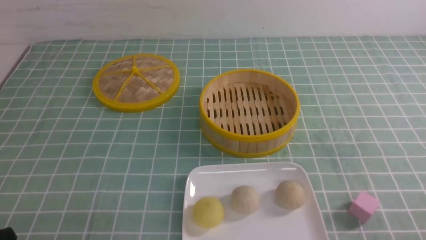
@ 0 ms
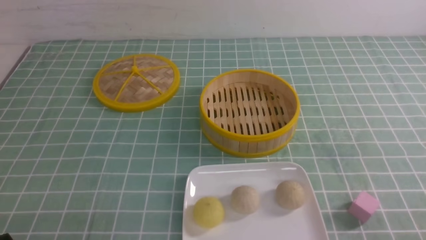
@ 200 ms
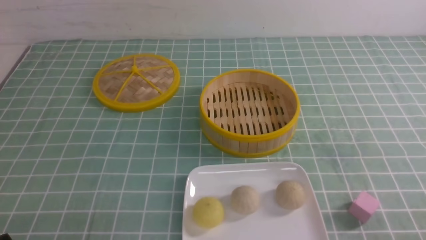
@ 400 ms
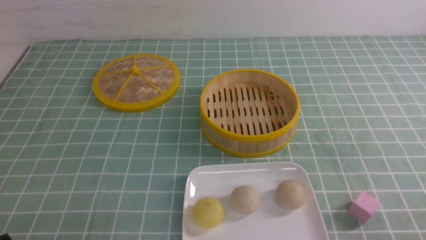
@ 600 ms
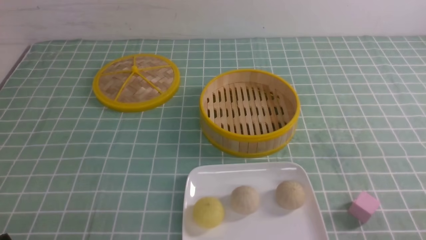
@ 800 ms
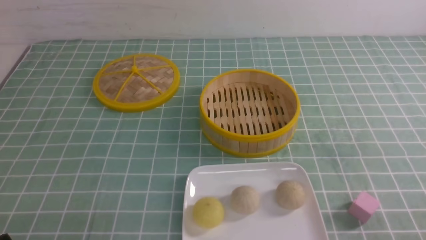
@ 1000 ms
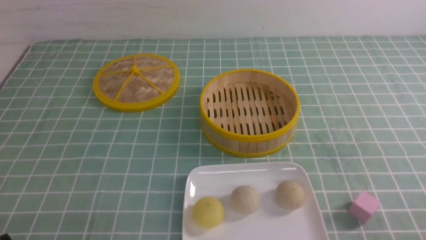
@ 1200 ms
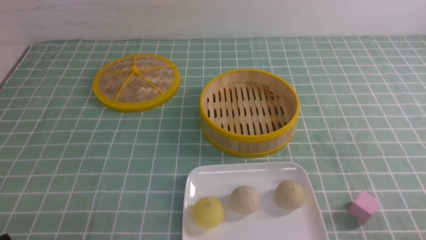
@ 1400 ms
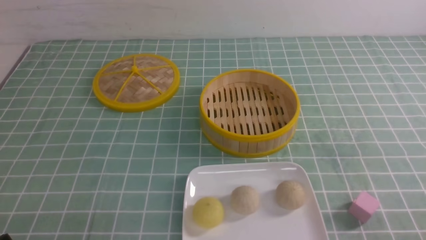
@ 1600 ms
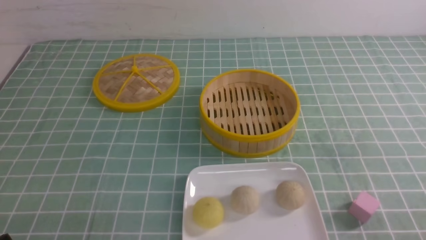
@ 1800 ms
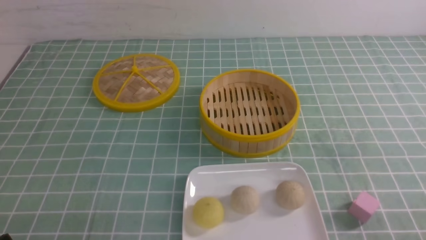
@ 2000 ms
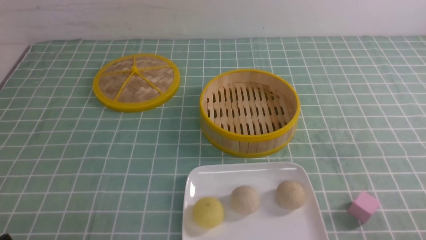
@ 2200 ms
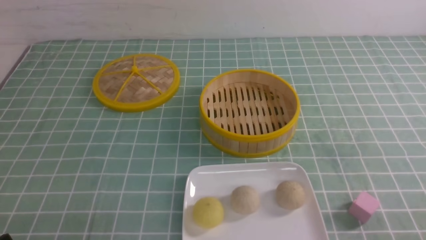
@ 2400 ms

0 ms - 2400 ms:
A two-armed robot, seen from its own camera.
0 ms - 2400 ms: The two grippers keep their place.

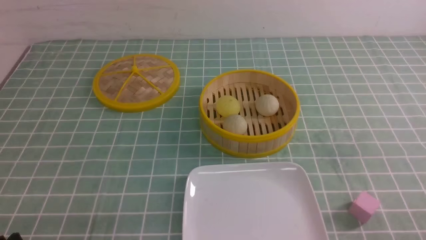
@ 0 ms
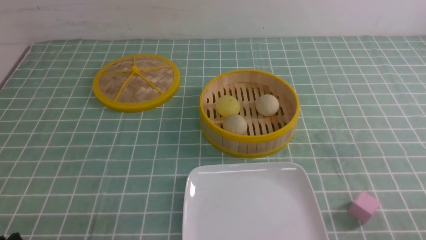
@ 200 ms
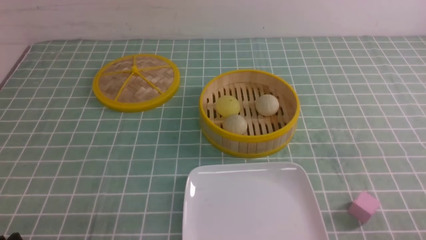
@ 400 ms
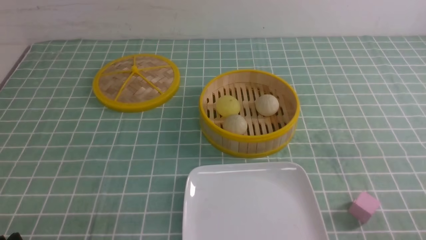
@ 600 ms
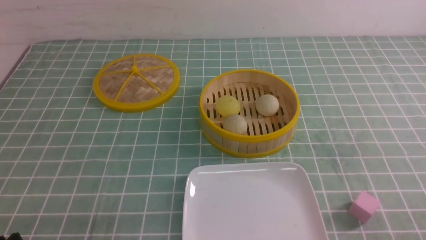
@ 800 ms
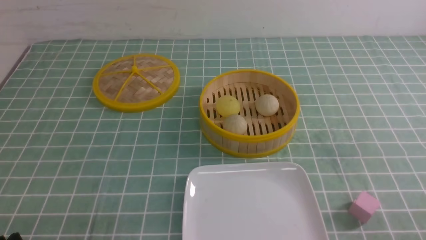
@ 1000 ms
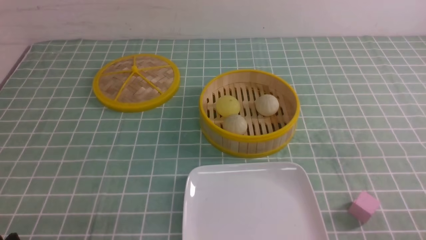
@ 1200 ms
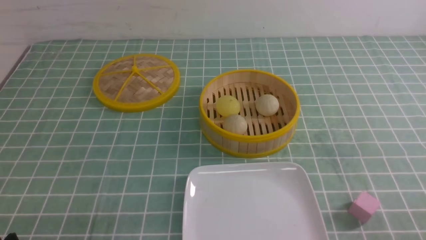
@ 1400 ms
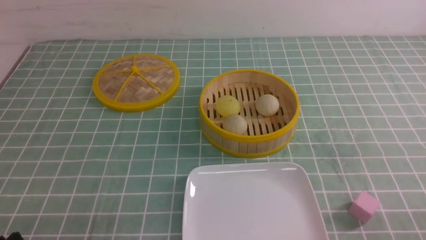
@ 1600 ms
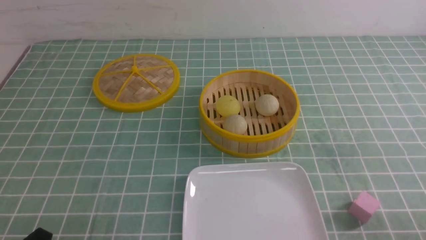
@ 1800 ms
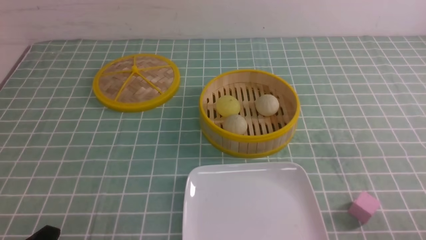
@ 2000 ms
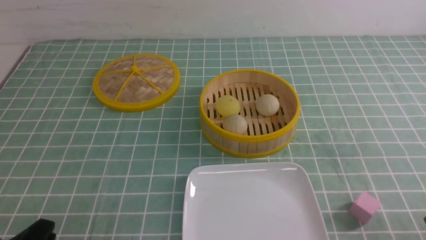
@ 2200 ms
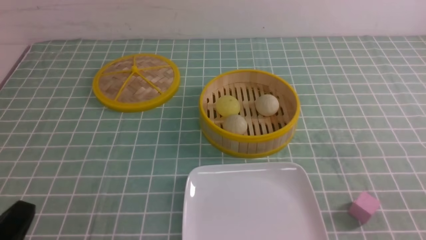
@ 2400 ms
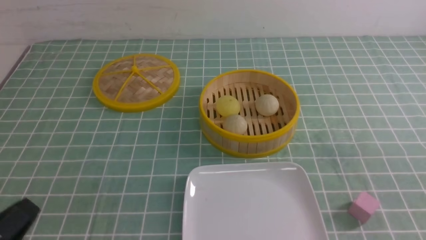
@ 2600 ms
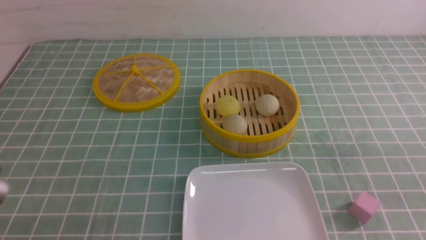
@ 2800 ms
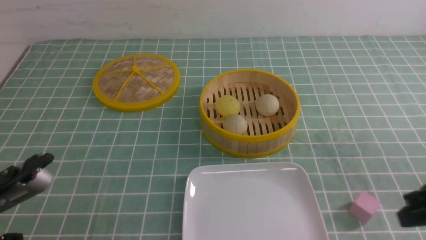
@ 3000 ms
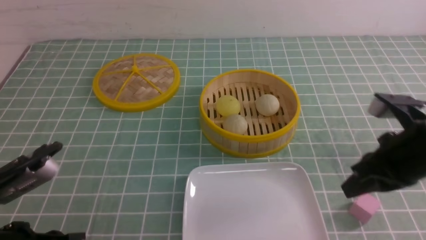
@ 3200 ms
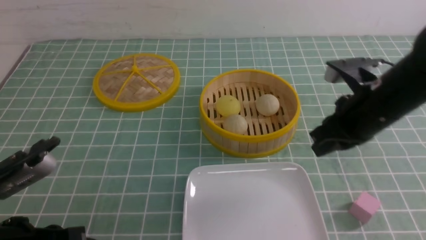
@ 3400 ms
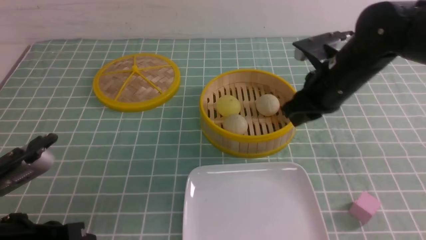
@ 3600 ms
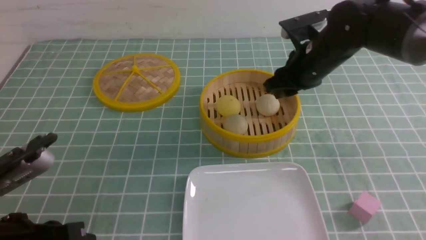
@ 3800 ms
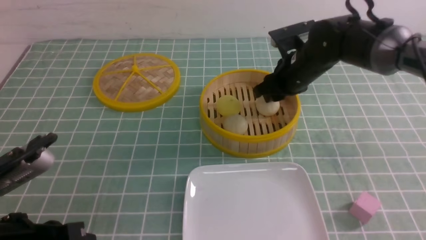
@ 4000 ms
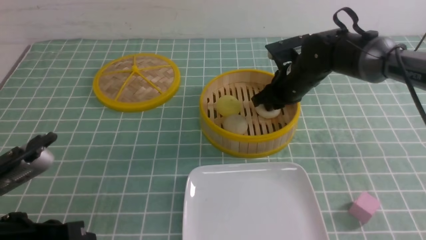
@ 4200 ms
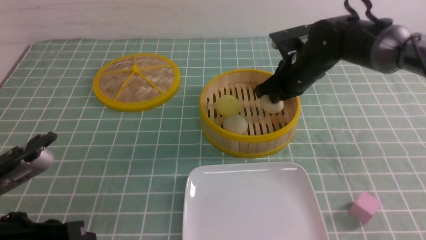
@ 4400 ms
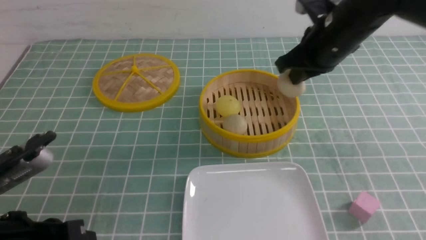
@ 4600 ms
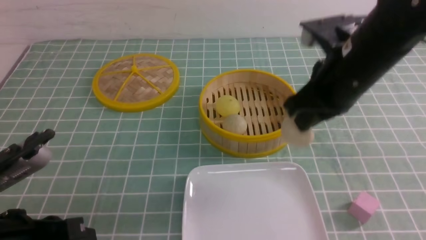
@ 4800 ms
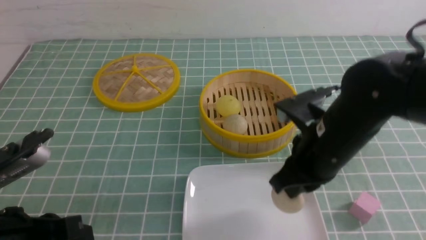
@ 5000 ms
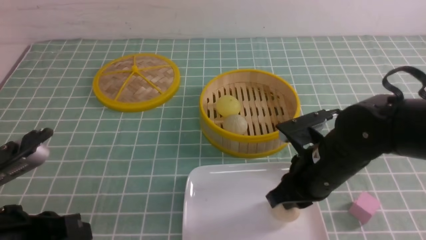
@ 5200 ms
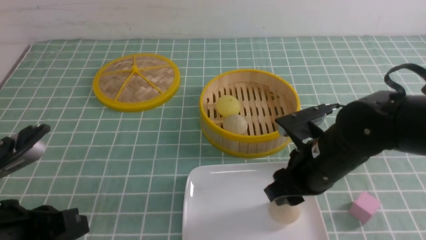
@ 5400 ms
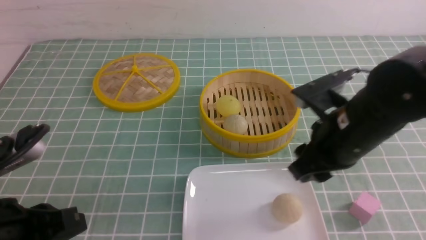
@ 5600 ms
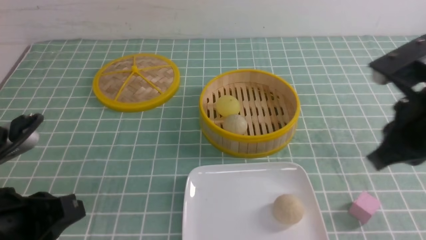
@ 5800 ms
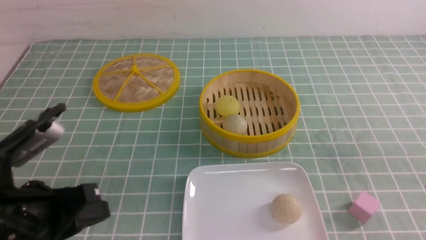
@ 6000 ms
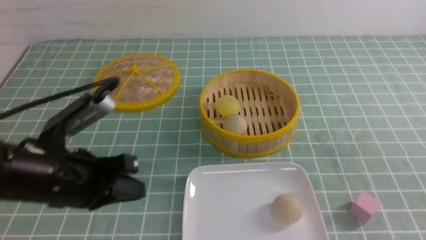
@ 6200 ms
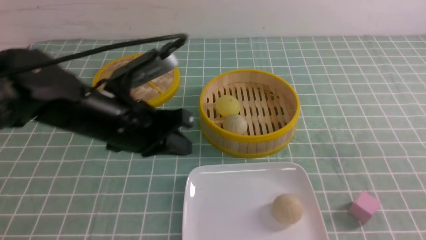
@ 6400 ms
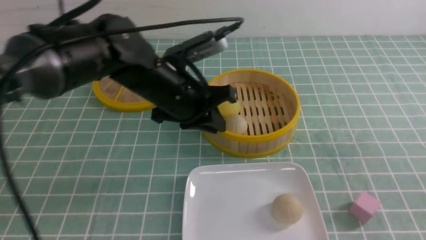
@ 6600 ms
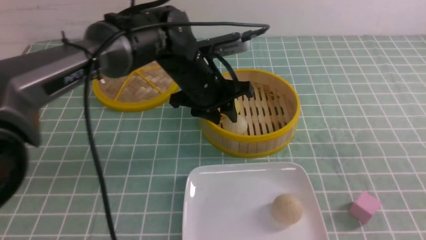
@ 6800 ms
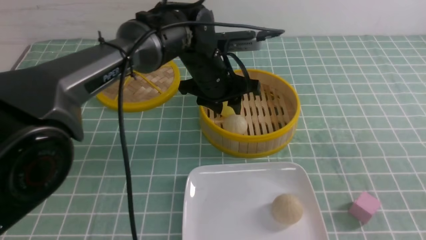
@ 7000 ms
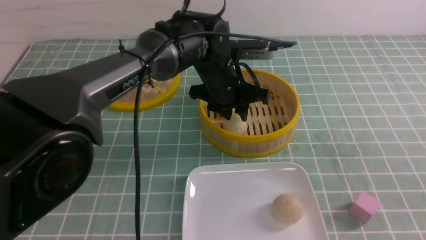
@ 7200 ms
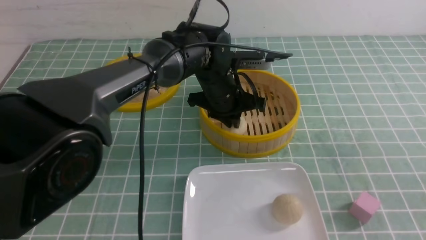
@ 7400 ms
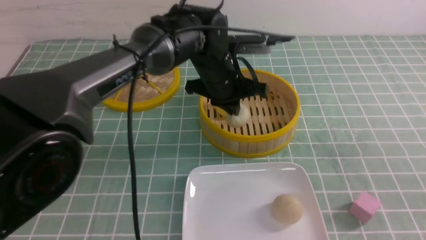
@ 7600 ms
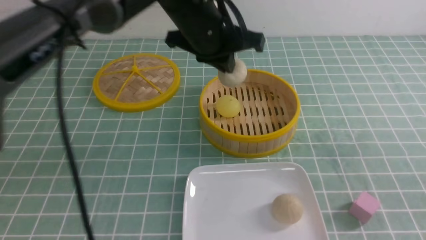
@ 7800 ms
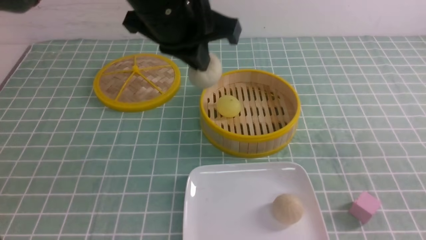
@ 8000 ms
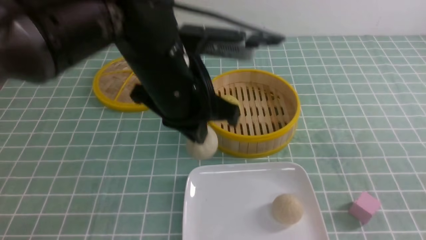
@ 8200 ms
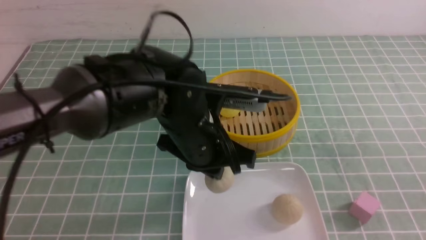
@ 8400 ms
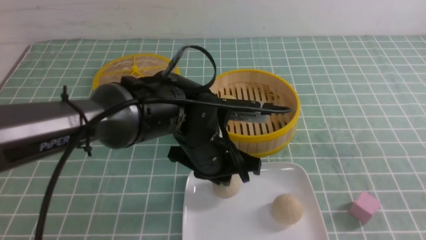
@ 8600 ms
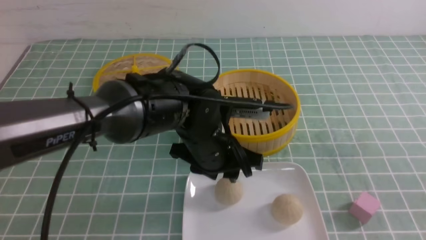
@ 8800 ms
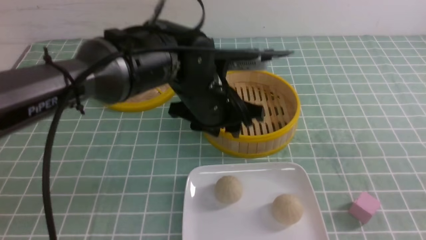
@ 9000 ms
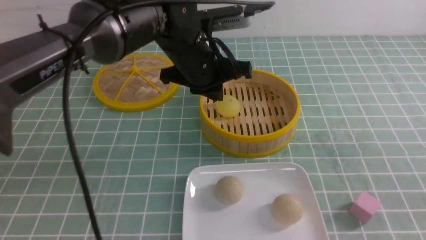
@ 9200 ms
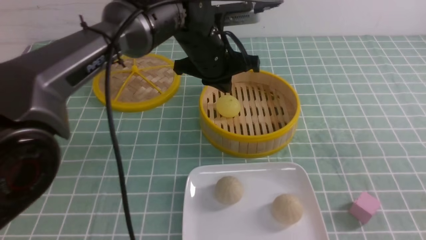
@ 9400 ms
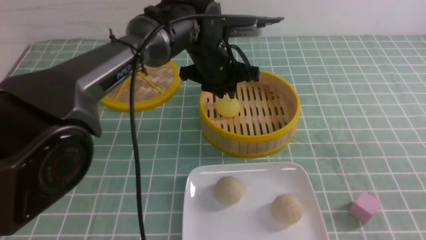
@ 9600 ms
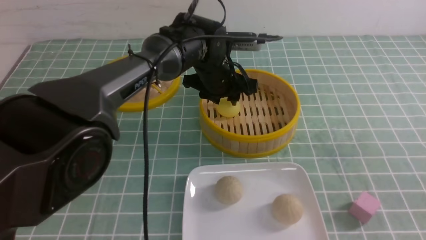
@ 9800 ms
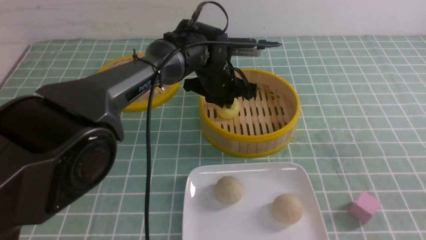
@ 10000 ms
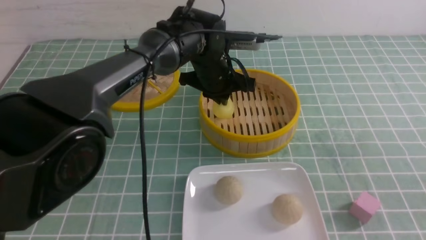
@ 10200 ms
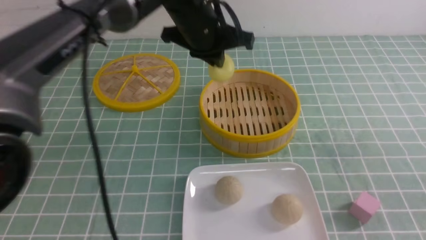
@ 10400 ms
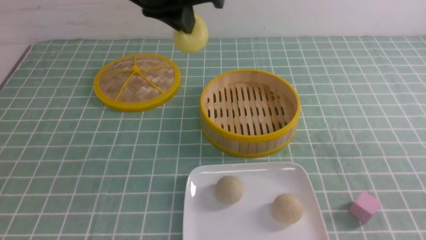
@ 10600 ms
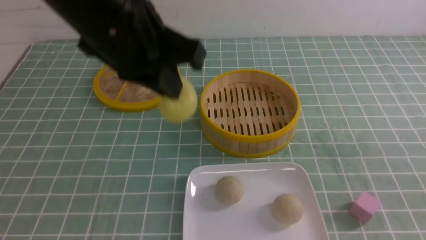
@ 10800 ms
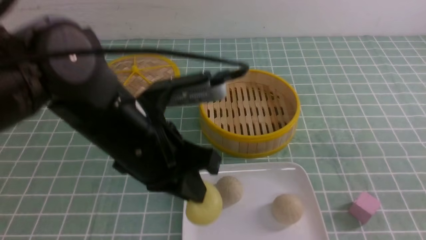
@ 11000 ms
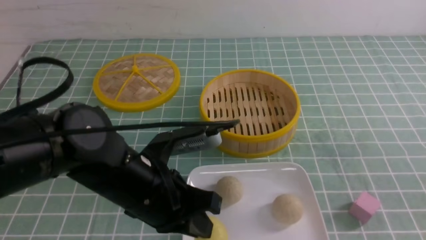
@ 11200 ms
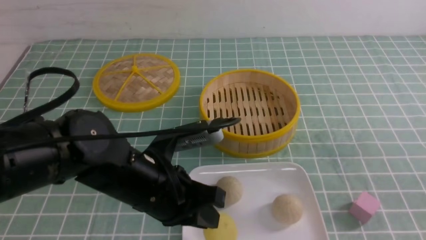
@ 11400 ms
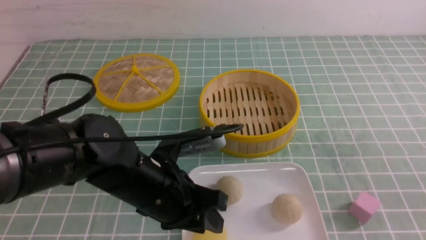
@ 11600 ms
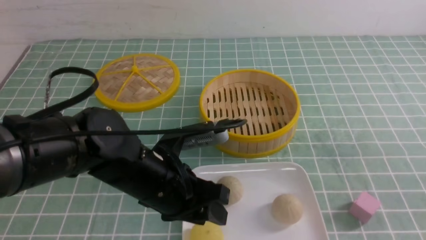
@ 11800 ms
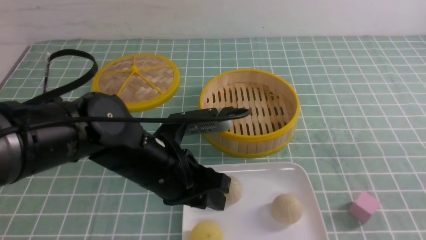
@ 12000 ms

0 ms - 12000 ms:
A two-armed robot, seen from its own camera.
Step, 0 ms - 4200 ms: use the right arm to grab the steamed stuffed bun that is closest to it.
Step, 4400 ms - 5400 ms: use the right arm to put the steamed stuffed bun into the plate.
Step, 5600 ms - 7200 ms: use the left arm to grab the steamed stuffed bun that is closest to it.
Step, 7400 ms - 8600 ms: use the left arm to put the steamed stuffed bun into the plate.
Step, 8800 ms - 10000 ms: use the left arm to grab the steamed stuffed bun that is closest to it.
Step, 10200 ms - 11400 ms: use the left arm to put the steamed stuffed bun into the plate.
1600 ms - 3000 ms: The right gripper moves forward and upward, roughly 15 cm, and closes up. Meanwhile the left gripper moves upward, some 10 cm, and closes.
3000 ms - 4400 ms: The right gripper heads forward and to the left, covering about 25 cm, and opens and closes again.
4400 ms - 6000 ms: The right gripper heads backward and to the right, covering about 30 cm, and opens and closes again. Meanwhile the left gripper heads forward, covering approximately 5 cm.
6000 ms - 7600 ms: The left gripper goes approximately 30 cm forward and to the right, and opens and closes again; the right gripper shifts by roughly 5 cm.
7600 ms - 9000 ms: The left gripper moves up and down over roughly 15 cm, changing direction 2 times, and opens its fingers.
9000 ms - 10400 ms: The left gripper travels upward by roughly 10 cm, and closes up.
10400 ms - 12000 ms: The left gripper is displaced backward and downward by approximately 20 cm, and opens; the right gripper closes.

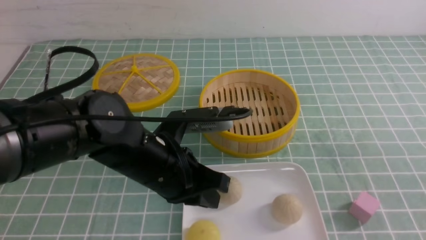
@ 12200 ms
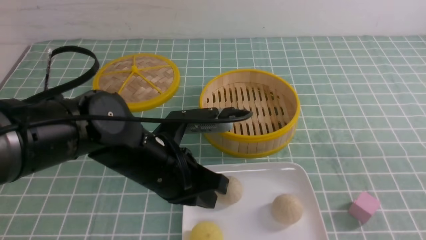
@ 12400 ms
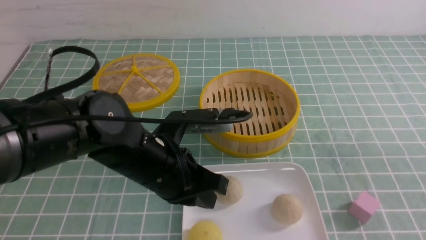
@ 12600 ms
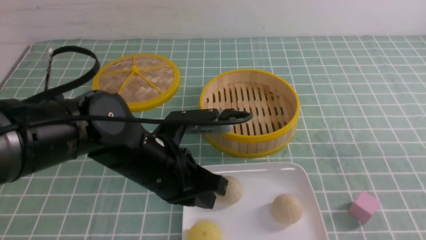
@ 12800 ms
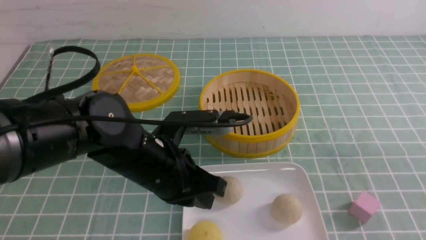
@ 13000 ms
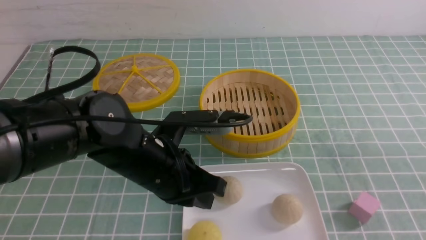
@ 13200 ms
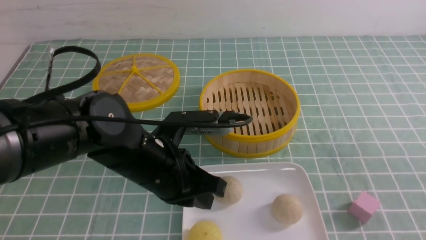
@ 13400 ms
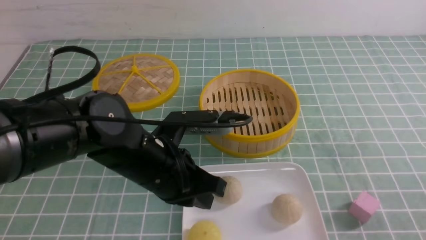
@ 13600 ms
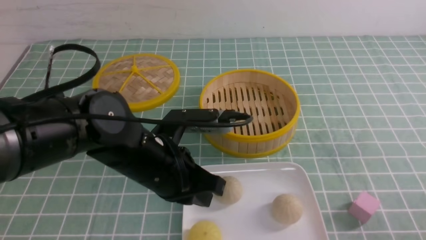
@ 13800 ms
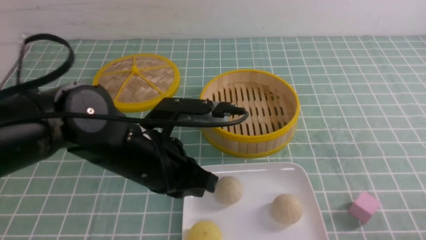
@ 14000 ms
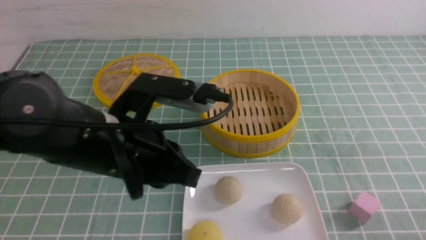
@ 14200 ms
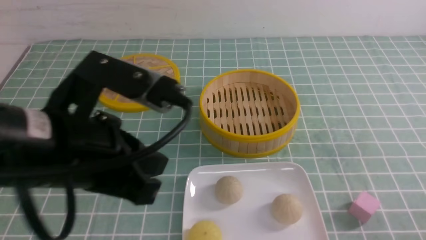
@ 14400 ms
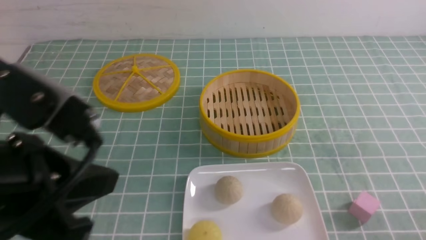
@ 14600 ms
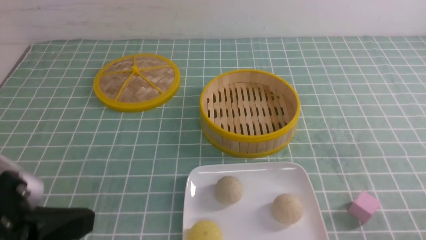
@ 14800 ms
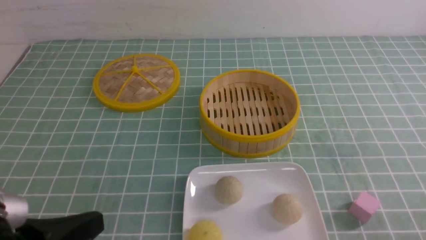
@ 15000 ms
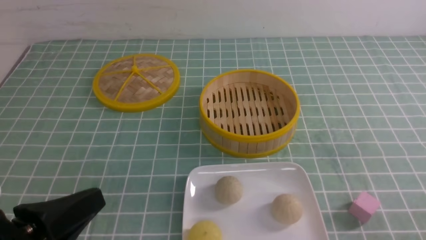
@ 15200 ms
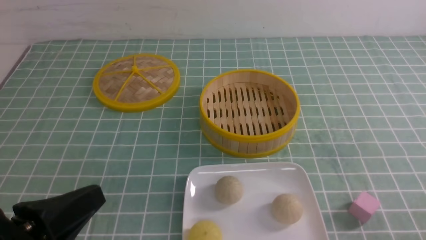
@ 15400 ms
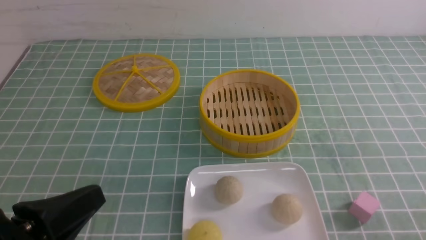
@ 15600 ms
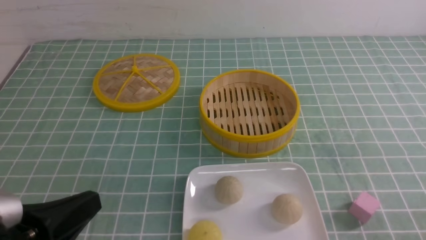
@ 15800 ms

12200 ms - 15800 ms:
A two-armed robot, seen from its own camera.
12200 ms - 14000 ms: The right gripper shifts about 10 cm downward.
14000 ms - 15800 ms: The left gripper heads backward and to the left, covering roughly 20 cm.
